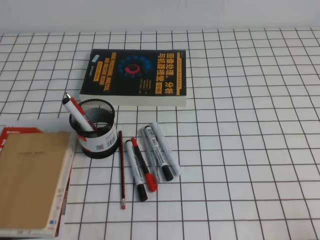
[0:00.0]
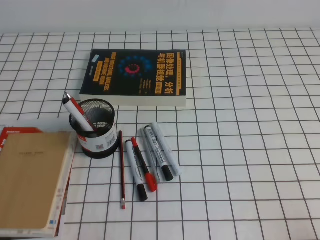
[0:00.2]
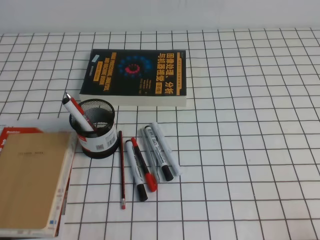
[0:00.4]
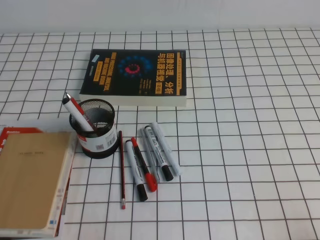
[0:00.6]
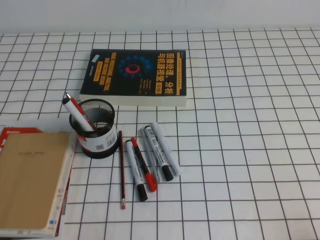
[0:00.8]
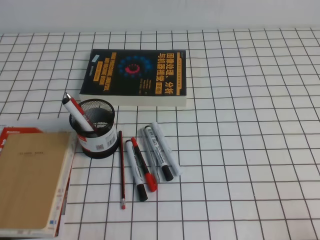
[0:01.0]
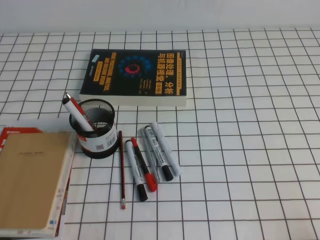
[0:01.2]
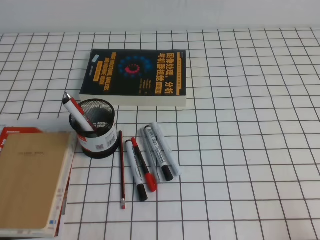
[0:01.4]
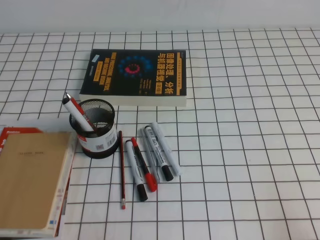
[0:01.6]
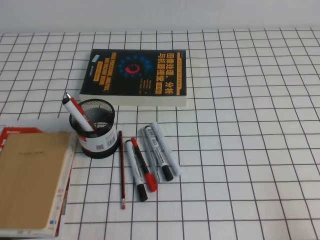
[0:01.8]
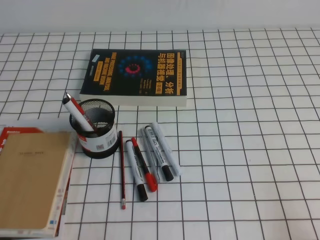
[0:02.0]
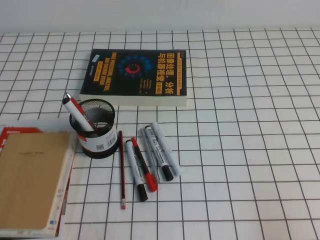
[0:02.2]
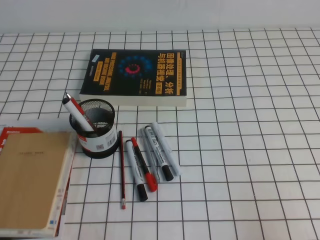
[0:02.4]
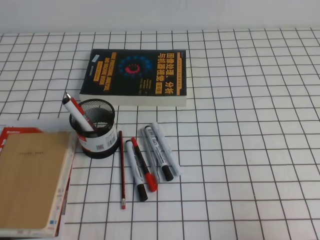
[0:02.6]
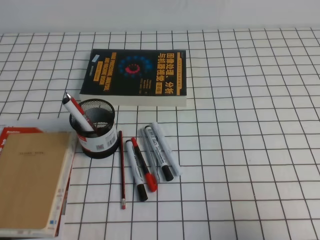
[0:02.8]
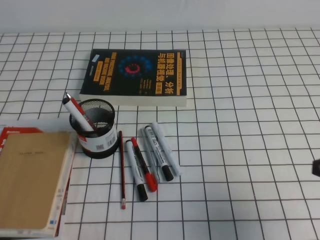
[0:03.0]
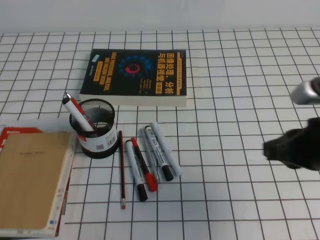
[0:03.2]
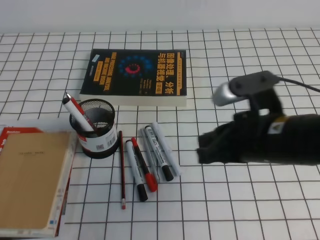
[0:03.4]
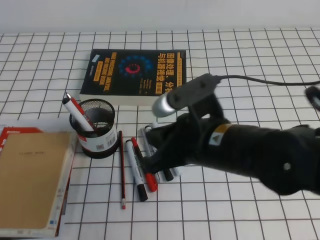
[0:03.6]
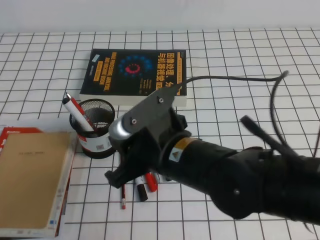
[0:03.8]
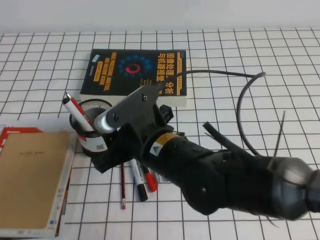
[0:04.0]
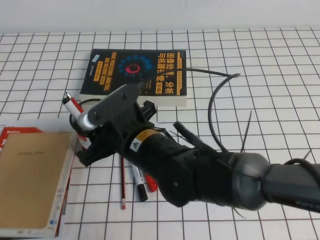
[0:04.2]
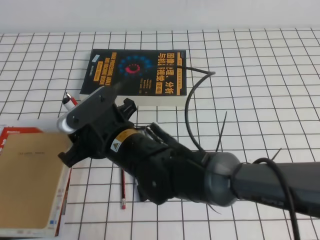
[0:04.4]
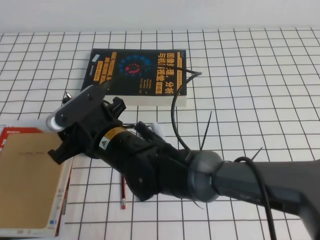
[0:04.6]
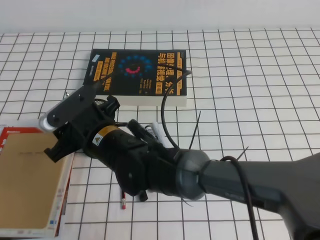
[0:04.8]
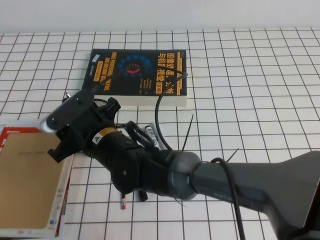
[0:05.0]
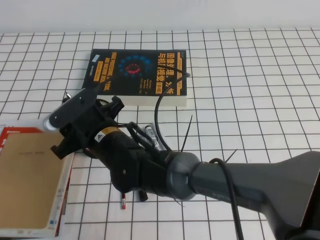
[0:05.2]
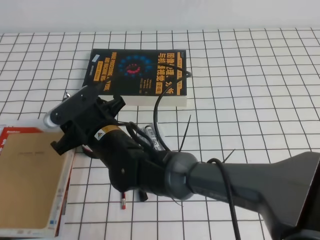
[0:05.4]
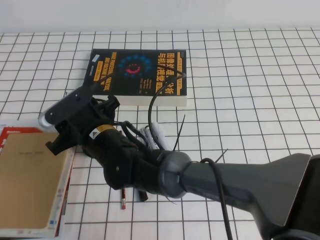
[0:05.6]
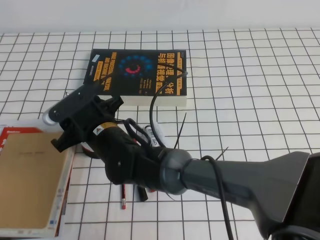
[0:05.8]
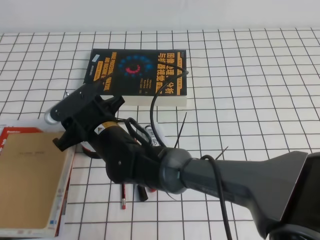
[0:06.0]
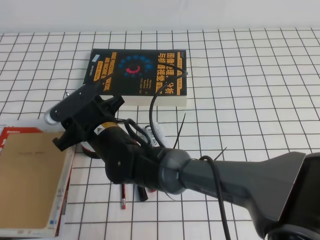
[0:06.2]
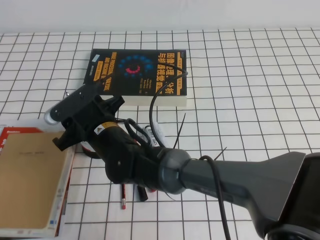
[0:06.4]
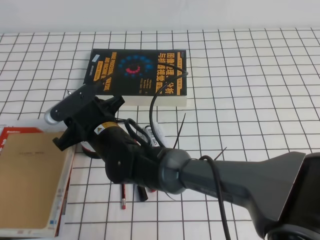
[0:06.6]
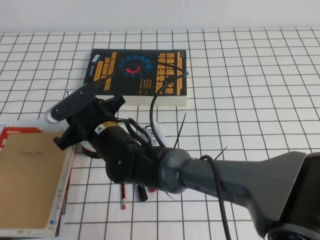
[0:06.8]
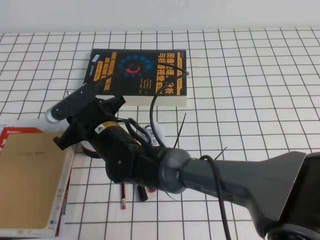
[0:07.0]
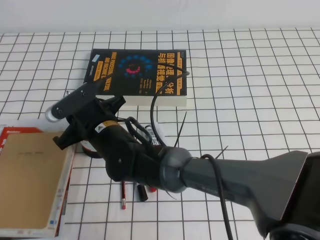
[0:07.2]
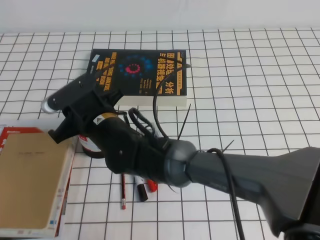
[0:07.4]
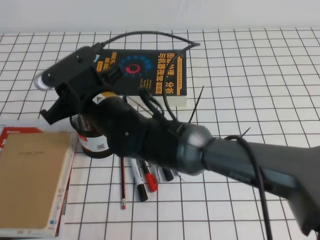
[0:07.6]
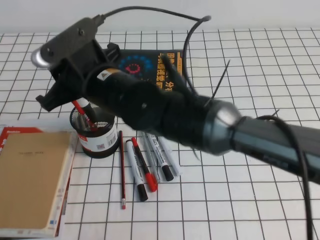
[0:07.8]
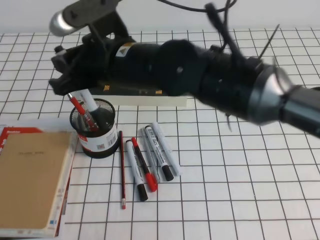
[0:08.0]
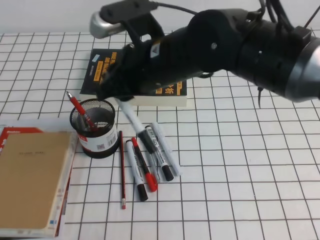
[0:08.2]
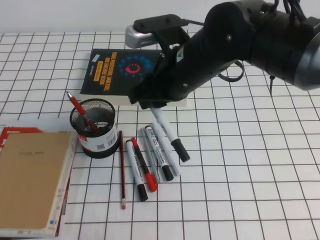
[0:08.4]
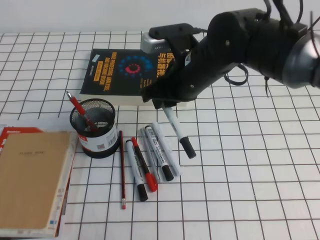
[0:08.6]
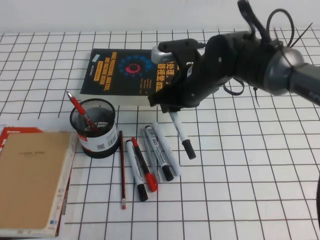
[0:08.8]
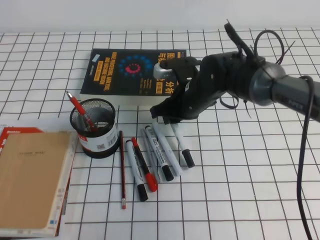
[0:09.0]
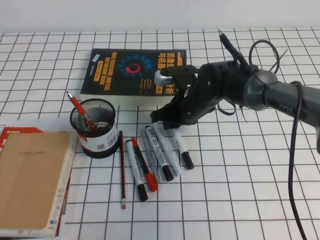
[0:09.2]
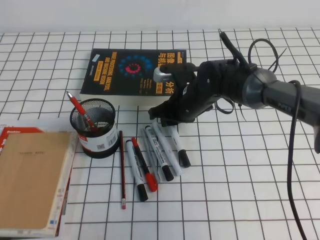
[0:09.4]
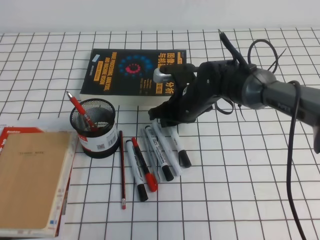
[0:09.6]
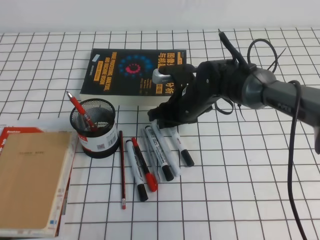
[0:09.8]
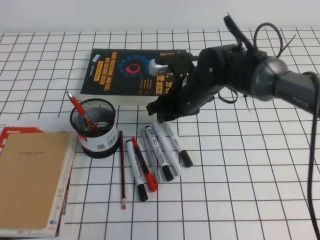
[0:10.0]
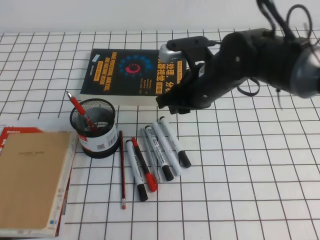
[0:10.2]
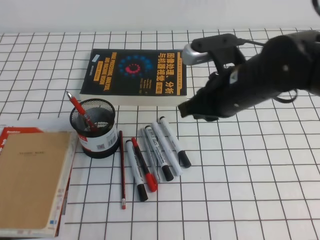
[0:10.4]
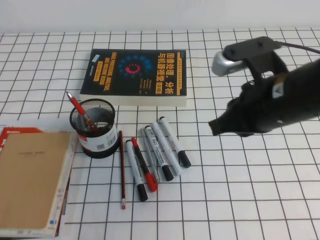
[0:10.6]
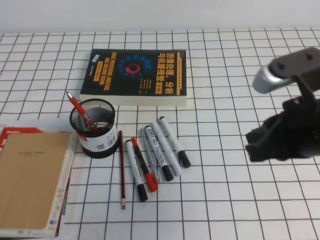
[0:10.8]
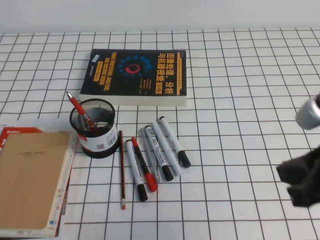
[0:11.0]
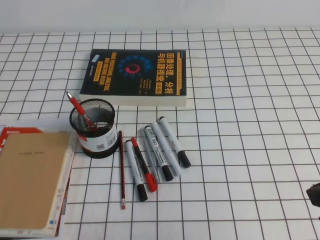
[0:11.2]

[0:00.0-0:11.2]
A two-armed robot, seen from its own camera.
0:01.6 to 0:03.2: The right gripper moves forward, upward and to the left, roughly 20 cm.
0:03.2 to 0:04.8: The right gripper moves to the left, roughly 35 cm, and opens up.
0:04.8 to 0:06.4: The grippers stay close to where they were, moving slightly.
0:06.4 to 0:08.0: The right gripper goes about 15 cm upward and to the right, and closes up.
0:08.0 to 0:09.6: The right gripper shifts about 20 cm downward, forward and to the right.
0:09.6 to 0:11.2: The right gripper goes roughly 35 cm backward, to the right and upward, and closes its fingers.

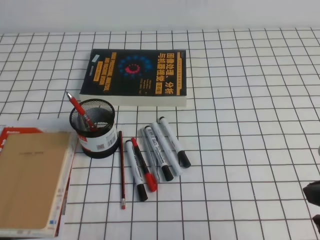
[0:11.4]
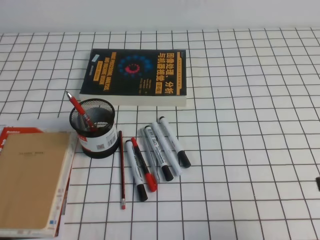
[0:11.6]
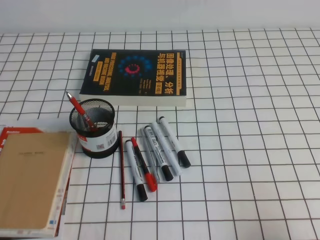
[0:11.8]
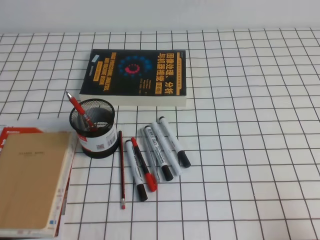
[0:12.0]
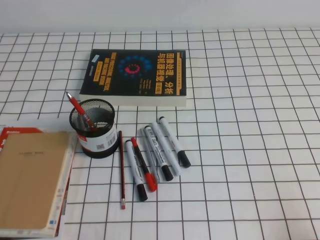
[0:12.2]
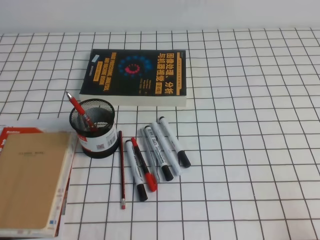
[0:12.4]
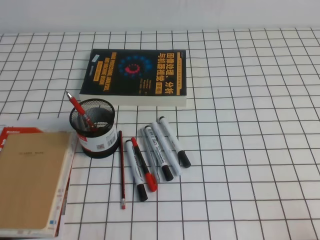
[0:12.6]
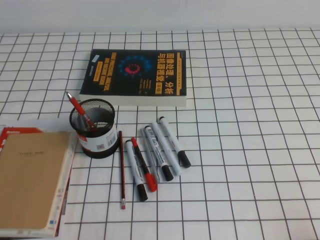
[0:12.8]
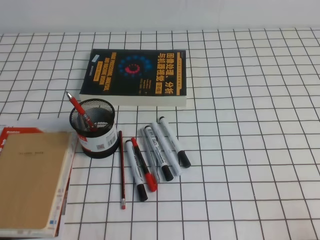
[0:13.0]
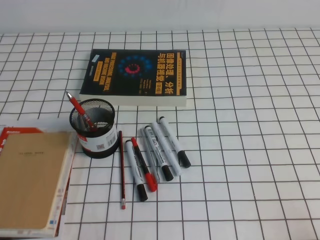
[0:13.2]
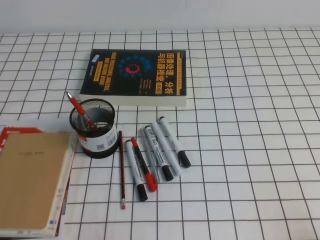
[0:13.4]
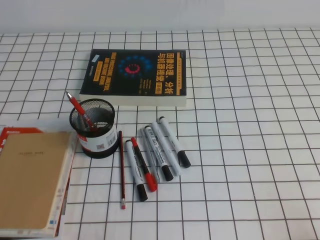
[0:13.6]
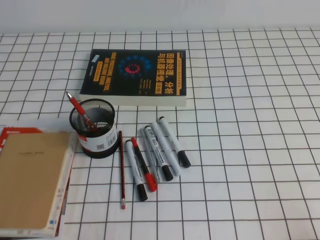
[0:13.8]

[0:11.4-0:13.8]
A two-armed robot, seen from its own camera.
Step, 0:11.4 to 0:13.8: Pick up the pen from the pen holder.
0:11.4 to 0:12.6: The right gripper goes roughly 15 cm downward, to the right and backward.
0:12.6 to 0:13.8: Neither gripper changes place.

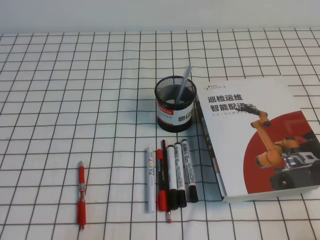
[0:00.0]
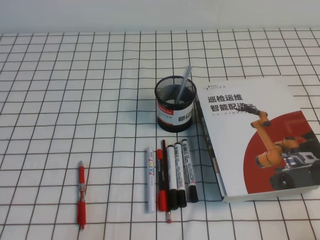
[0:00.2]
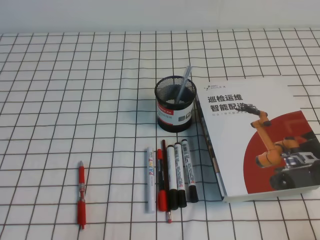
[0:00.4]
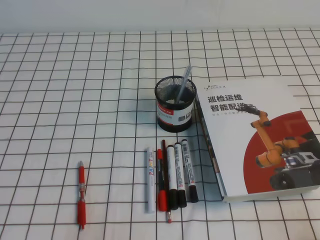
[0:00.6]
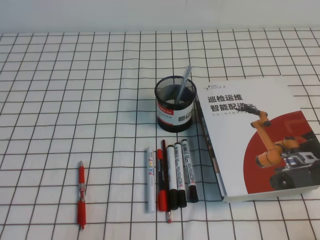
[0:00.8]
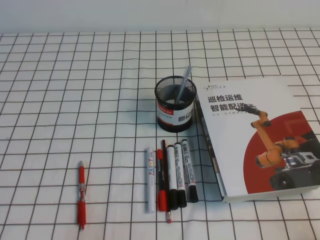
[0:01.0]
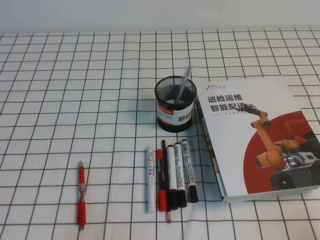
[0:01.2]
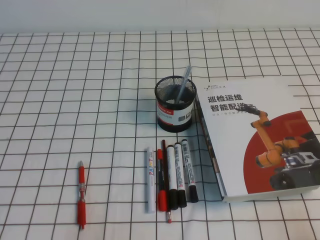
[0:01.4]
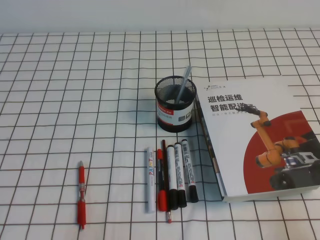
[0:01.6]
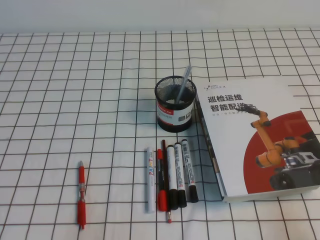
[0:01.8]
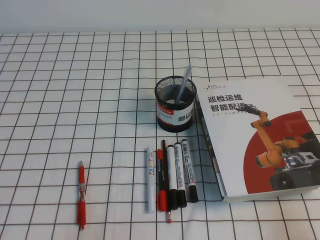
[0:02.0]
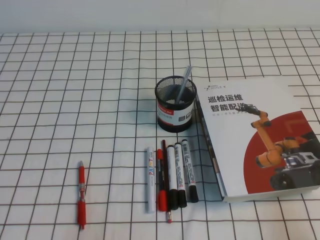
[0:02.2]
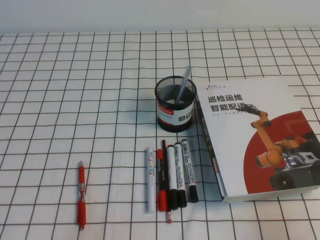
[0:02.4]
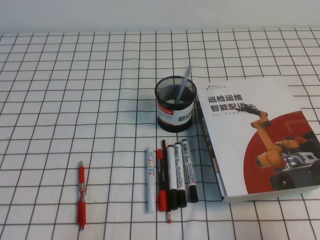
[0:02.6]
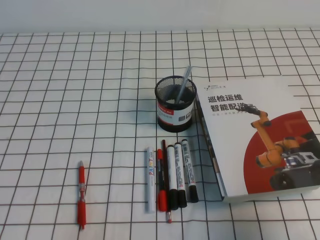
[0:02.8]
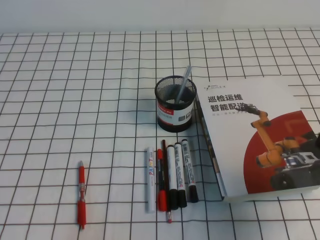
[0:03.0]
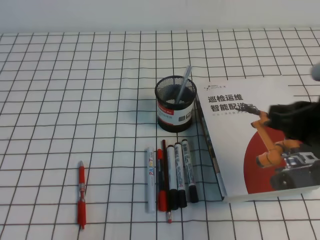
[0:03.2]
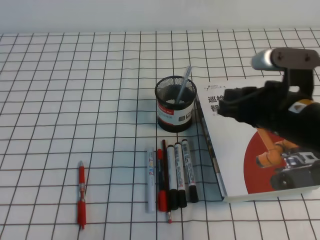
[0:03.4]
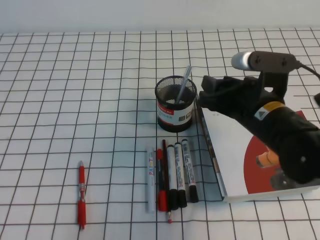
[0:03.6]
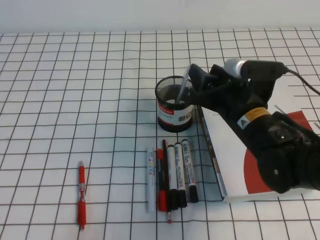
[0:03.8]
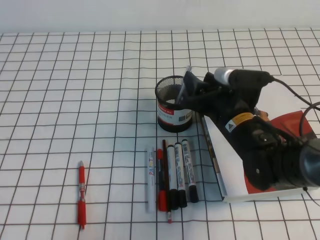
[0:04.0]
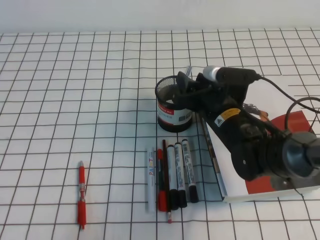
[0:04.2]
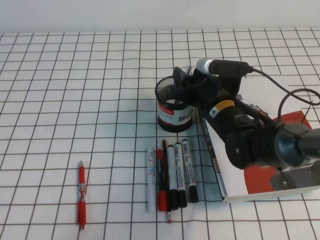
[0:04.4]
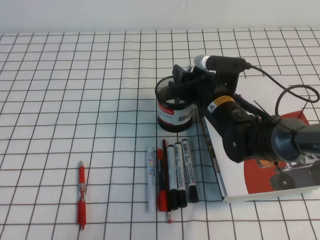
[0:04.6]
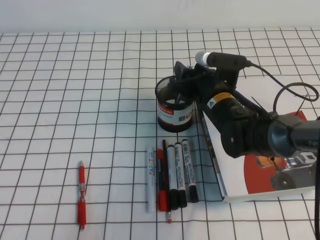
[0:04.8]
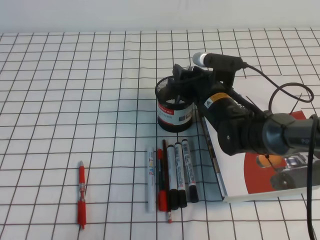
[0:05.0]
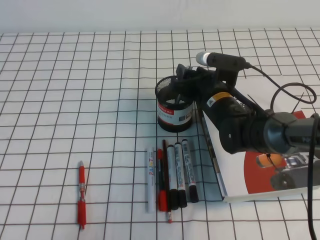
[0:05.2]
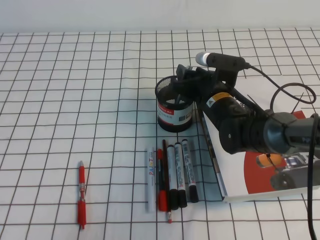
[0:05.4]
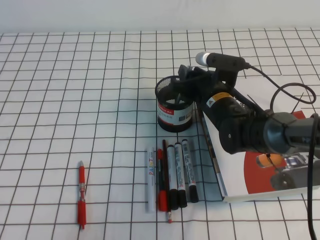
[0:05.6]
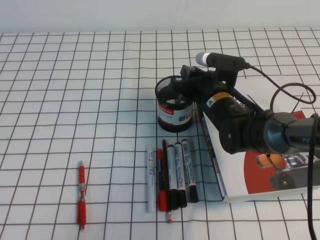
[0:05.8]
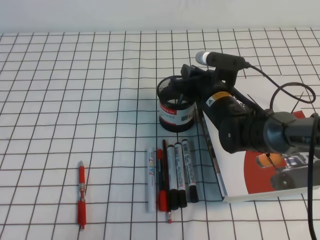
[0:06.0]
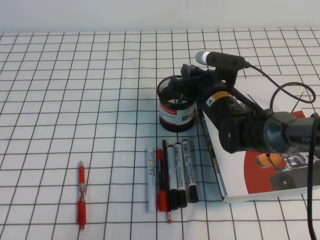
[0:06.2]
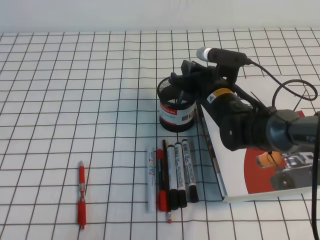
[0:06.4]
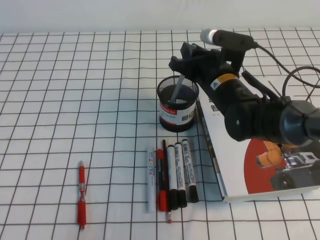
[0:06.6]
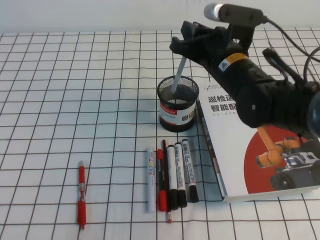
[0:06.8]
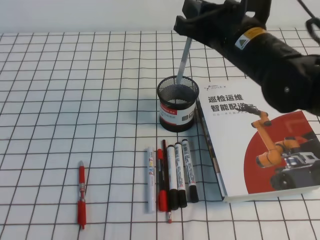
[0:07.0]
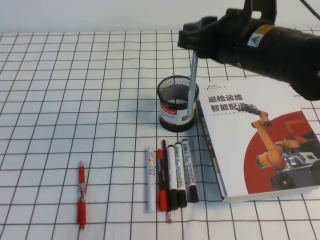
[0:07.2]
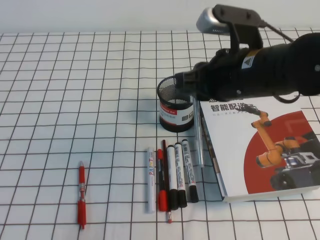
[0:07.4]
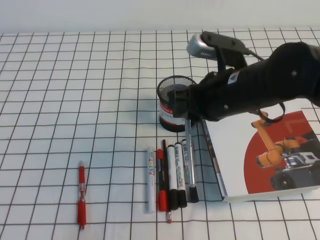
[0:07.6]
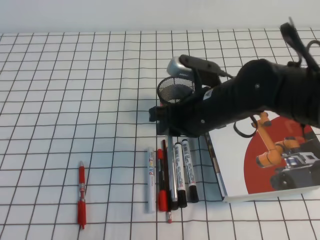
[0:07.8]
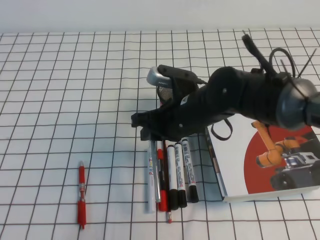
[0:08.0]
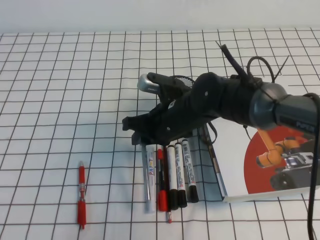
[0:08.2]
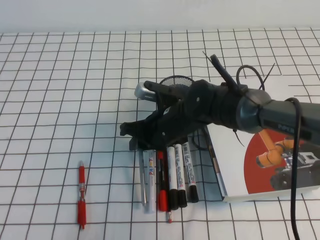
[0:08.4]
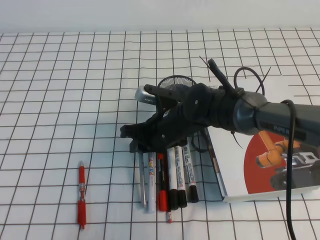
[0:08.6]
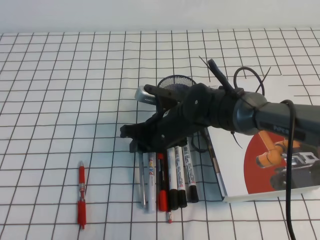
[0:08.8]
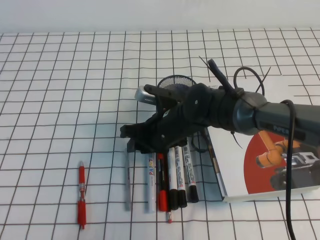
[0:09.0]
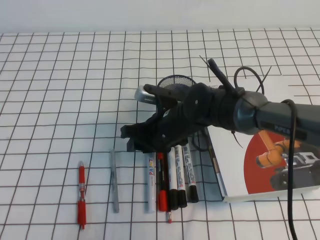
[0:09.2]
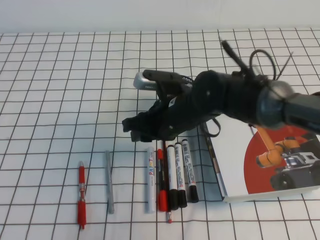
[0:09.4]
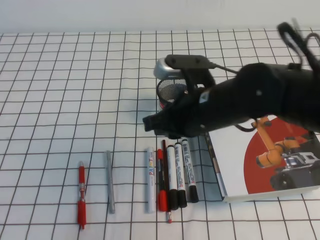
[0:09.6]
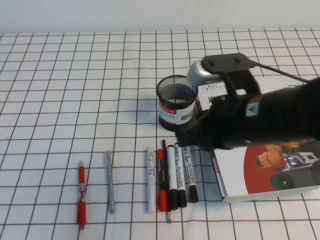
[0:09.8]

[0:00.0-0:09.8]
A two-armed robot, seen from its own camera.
0:01.4 to 0:02.8: The right gripper shifts roughly 10 cm upward and forward.
0:02.8 to 0:04.2: The right gripper heads forward and to the left, covering some 30 cm, and opens its fingers.
0:04.2 to 0:05.6: The right gripper heads forward, covering about 5 cm.
0:05.6 to 0:07.0: The right gripper is displaced upward by some 15 cm, and closes up.
0:07.0 to 0:08.4: The right gripper moves downward and to the left, some 15 cm.
0:08.4 to 0:09.8: The right gripper moves upward, backward and to the right, some 20 cm, and opens, then closes once more.
